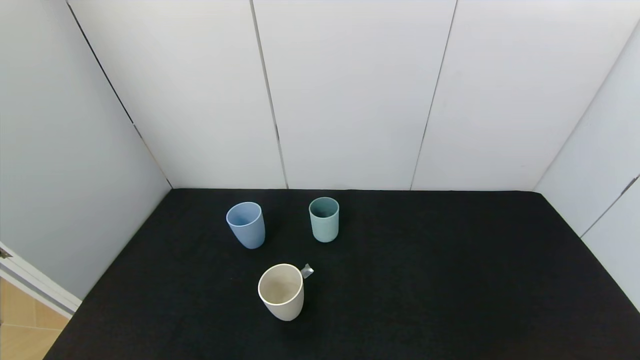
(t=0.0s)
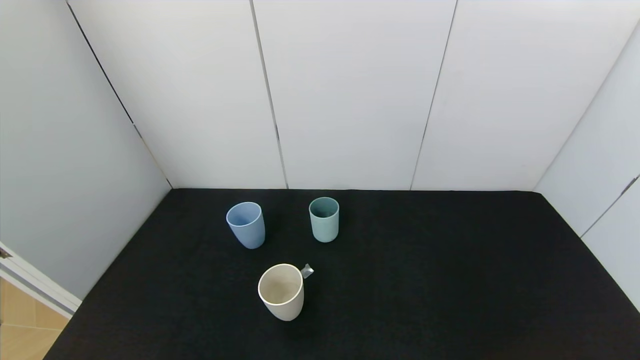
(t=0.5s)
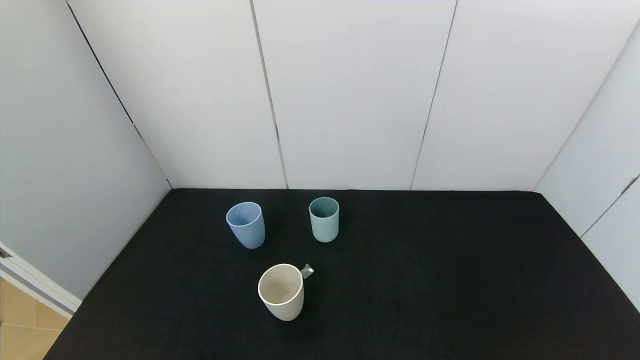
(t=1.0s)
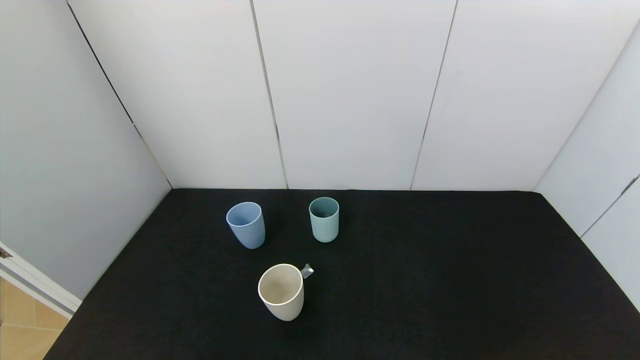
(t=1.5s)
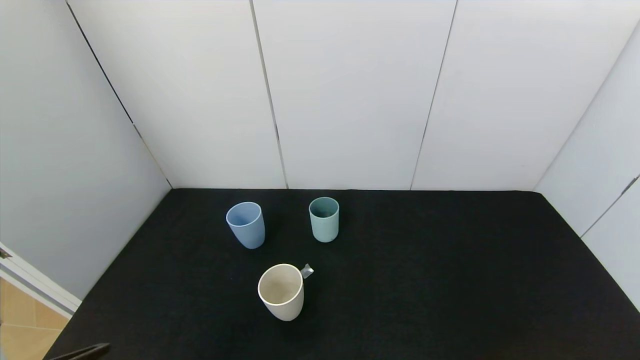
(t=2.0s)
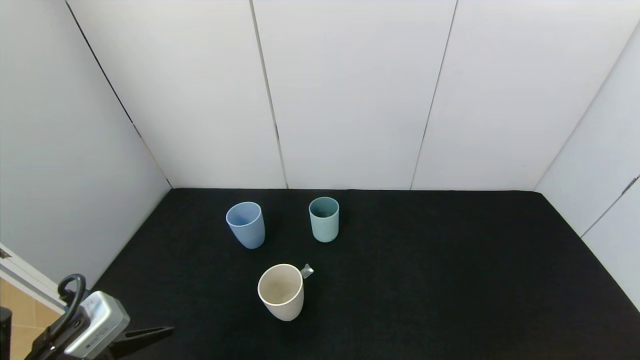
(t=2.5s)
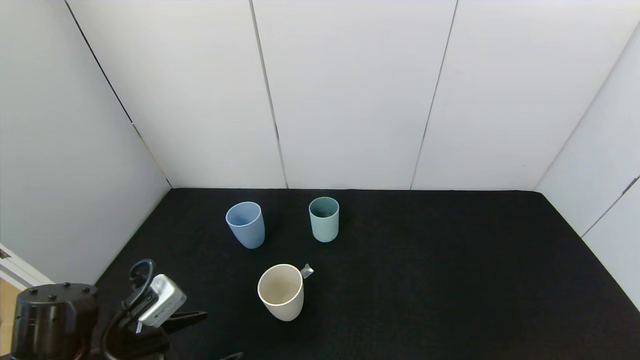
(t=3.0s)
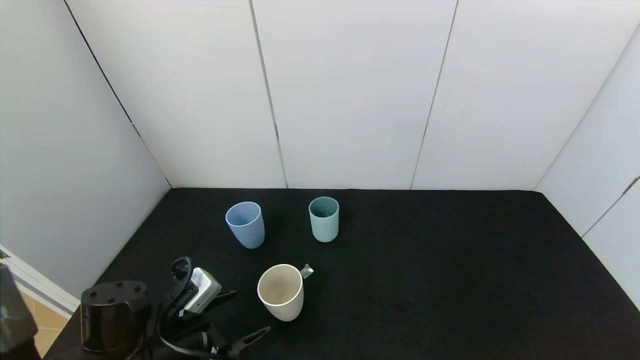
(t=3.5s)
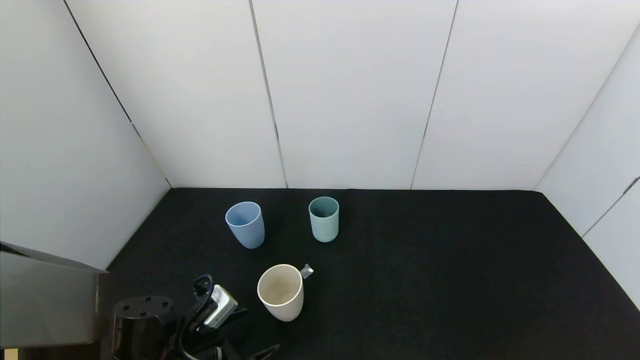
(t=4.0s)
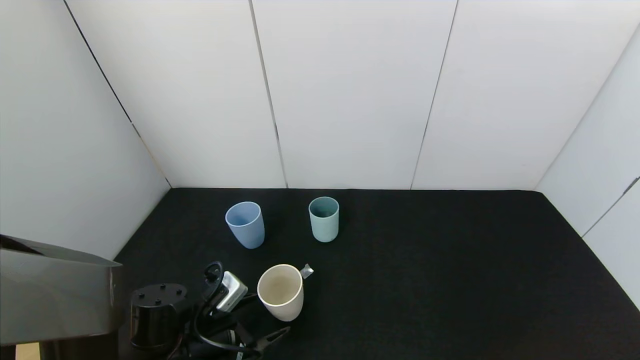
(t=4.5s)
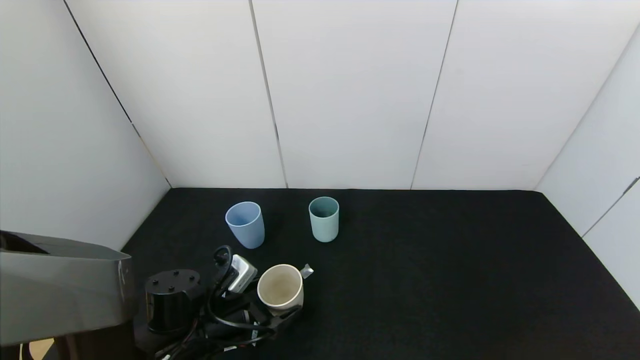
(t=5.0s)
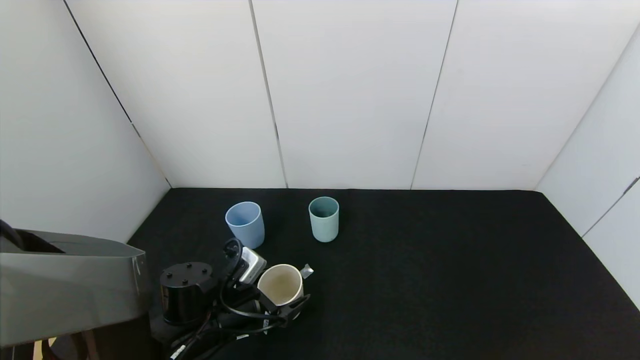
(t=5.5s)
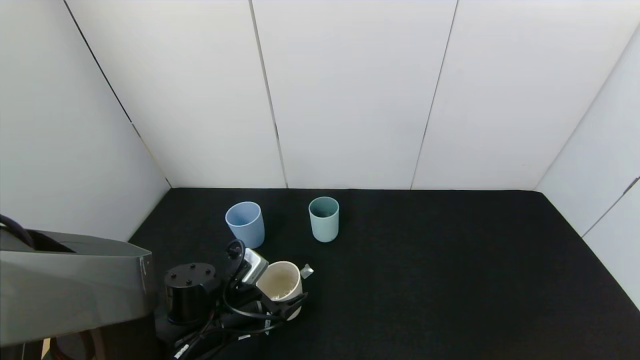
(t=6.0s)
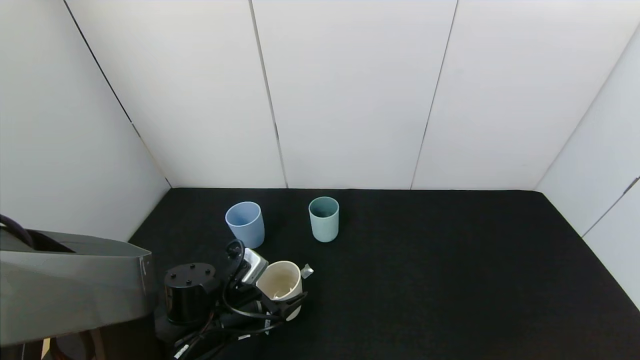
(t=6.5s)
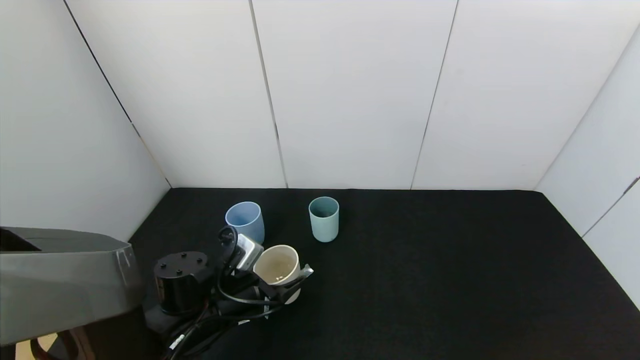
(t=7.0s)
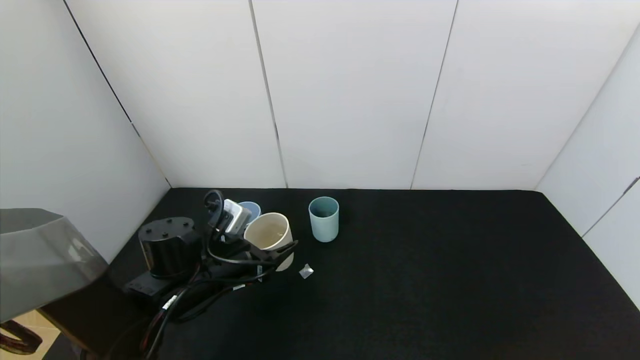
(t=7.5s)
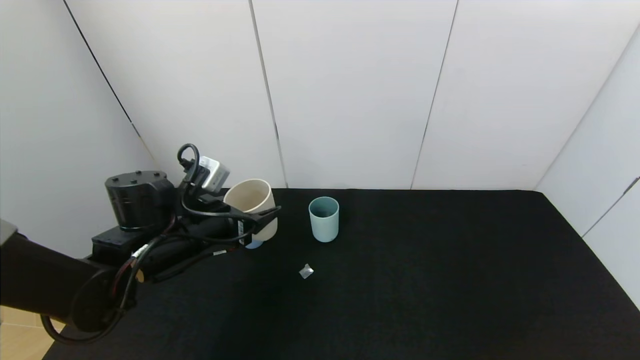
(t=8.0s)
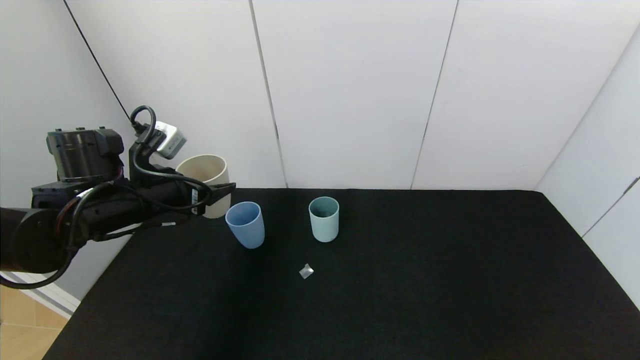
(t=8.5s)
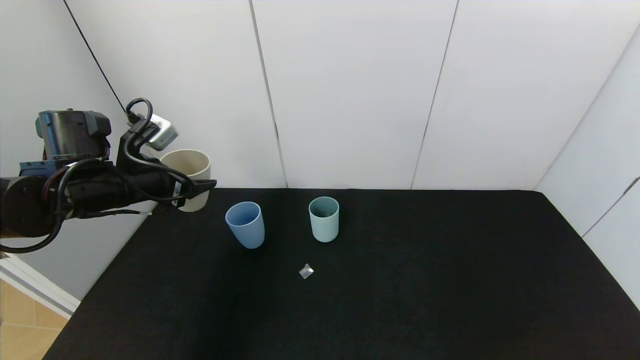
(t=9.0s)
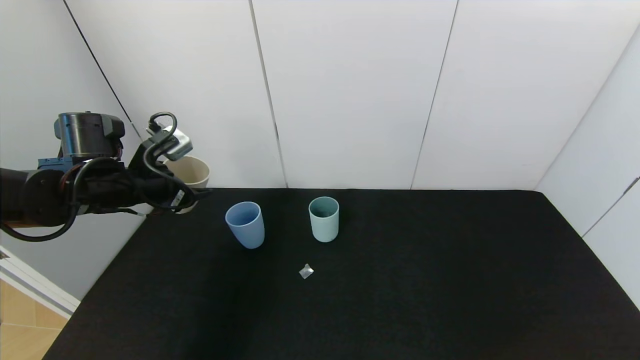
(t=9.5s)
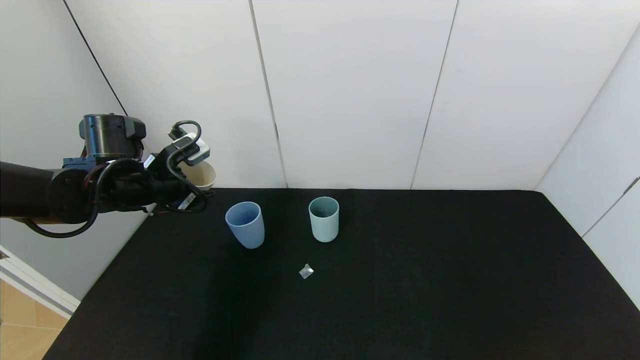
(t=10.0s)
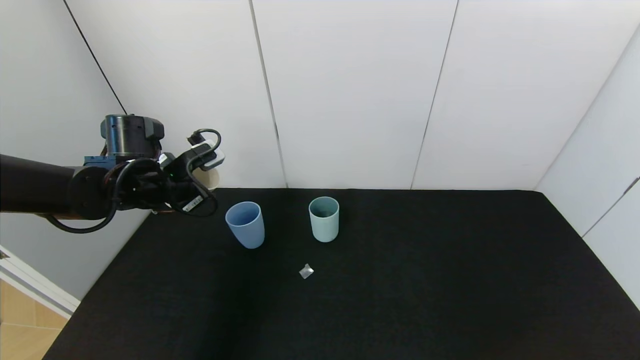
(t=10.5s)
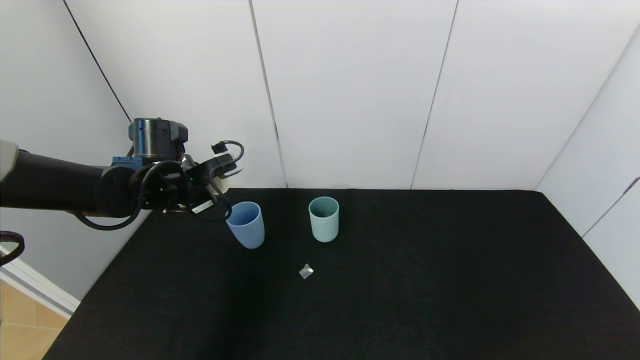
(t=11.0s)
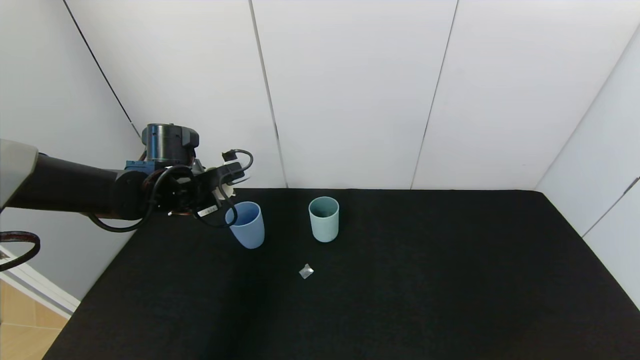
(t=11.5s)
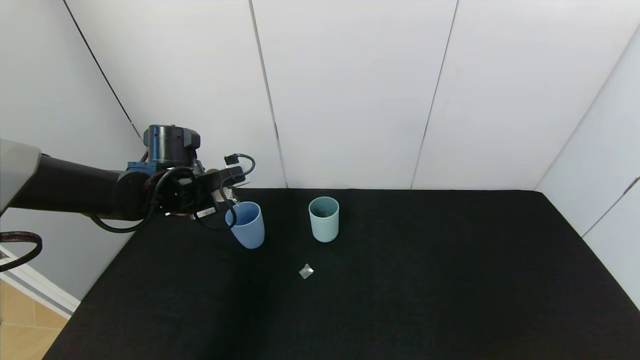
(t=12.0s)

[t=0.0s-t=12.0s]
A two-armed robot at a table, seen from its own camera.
Task of the whole recording: use the gripper to pour the water into the other two cups on black table.
Step, t=0.0s to t=6.0s: Grasp the white cup with the left gripper.
t=2.0s to t=4.0s: The left gripper travels forward and downward by some 20 cm.
t=4.0s to t=6.0s: The left gripper travels forward by roughly 5 cm, and closes up.
t=6.0s to t=8.0s: The left gripper travels upward by approximately 10 cm.
t=8.0s to t=10.0s: The left gripper is displaced to the left, forward and upward by approximately 10 cm.
t=10.0s to t=12.0s: The left gripper shifts by about 5 cm.

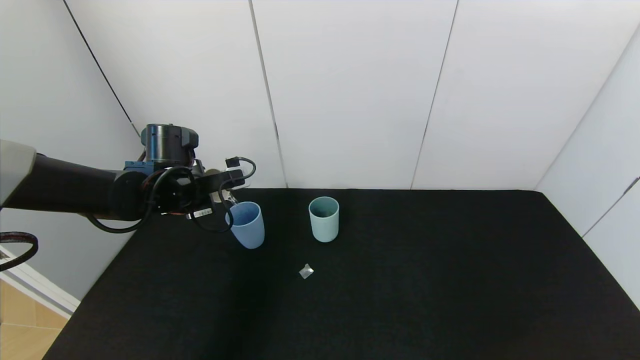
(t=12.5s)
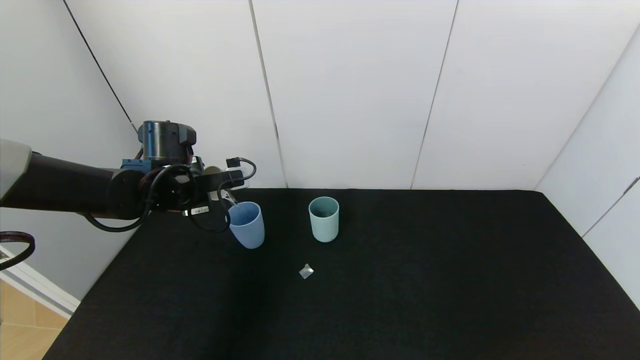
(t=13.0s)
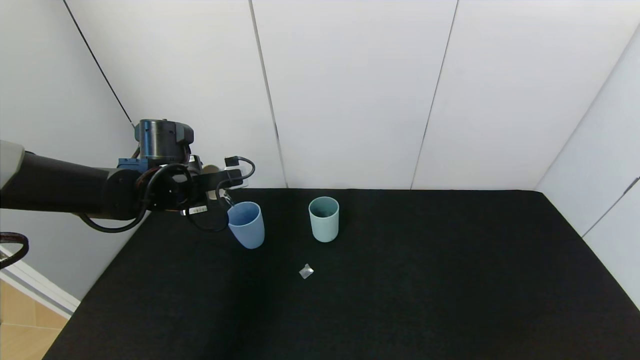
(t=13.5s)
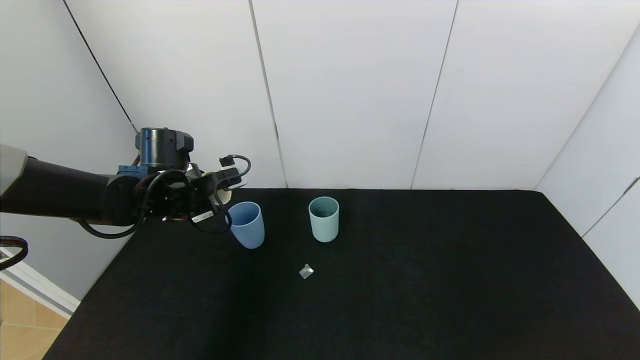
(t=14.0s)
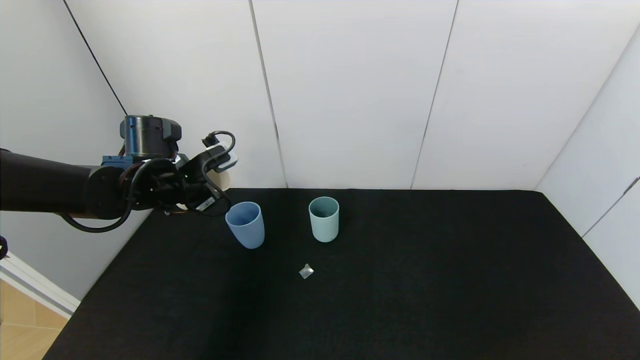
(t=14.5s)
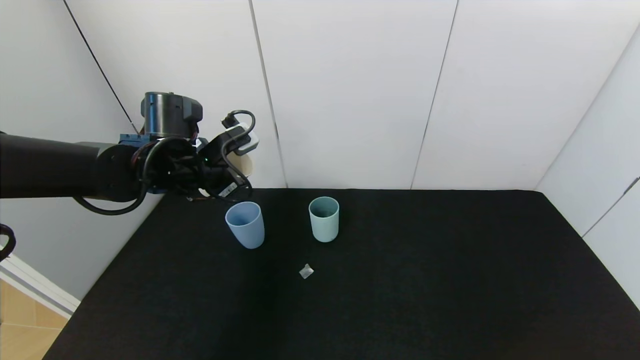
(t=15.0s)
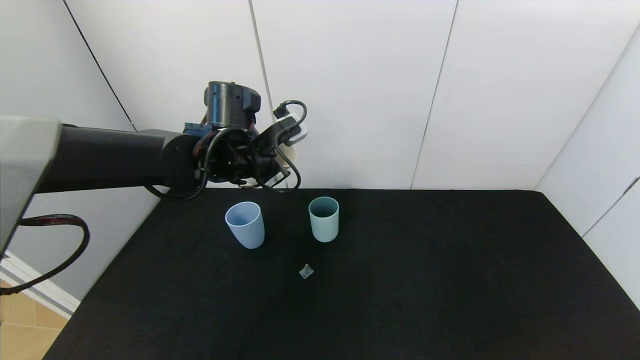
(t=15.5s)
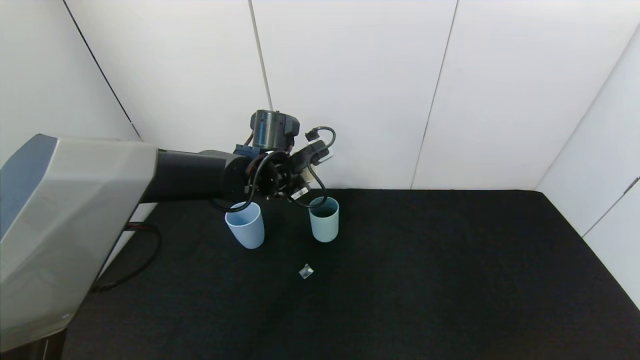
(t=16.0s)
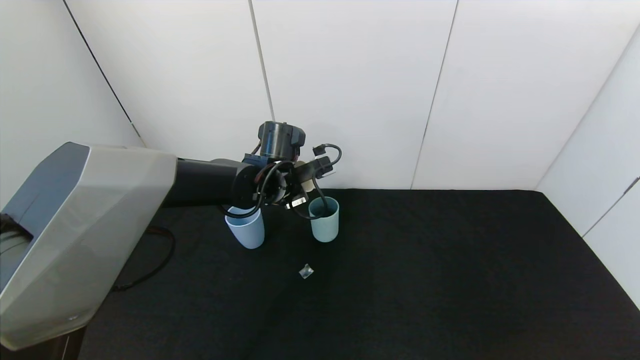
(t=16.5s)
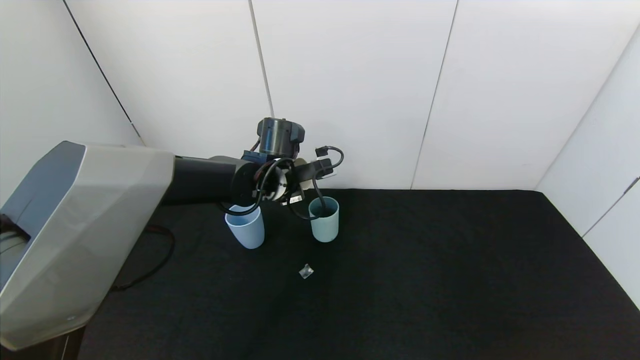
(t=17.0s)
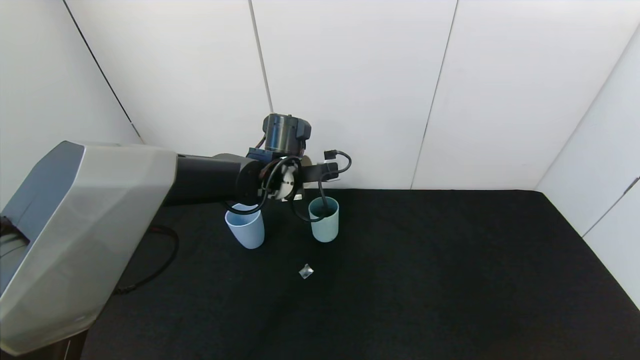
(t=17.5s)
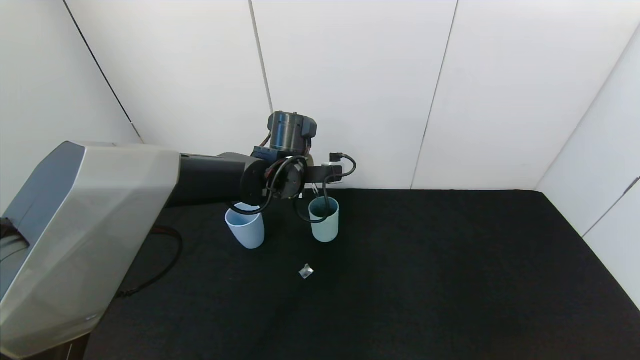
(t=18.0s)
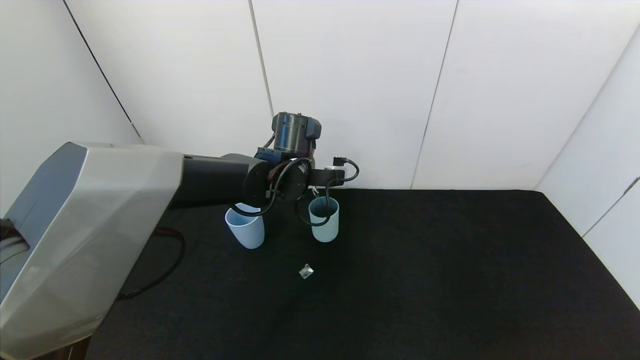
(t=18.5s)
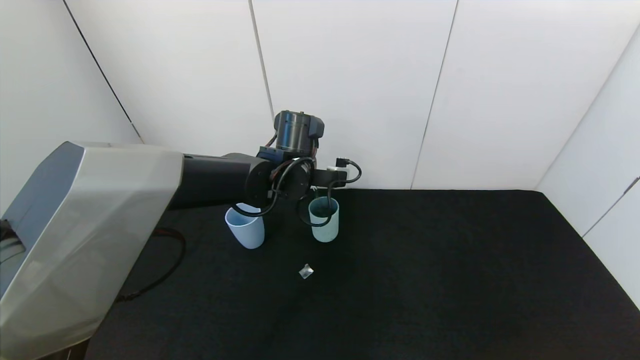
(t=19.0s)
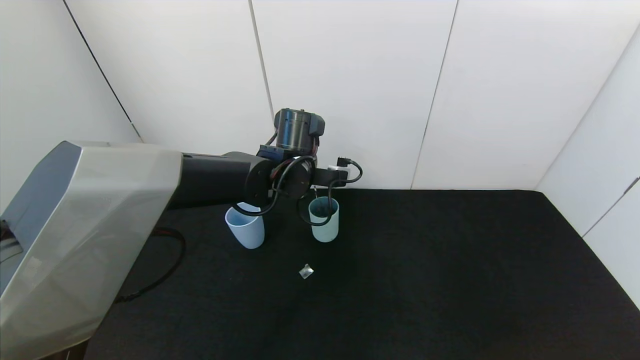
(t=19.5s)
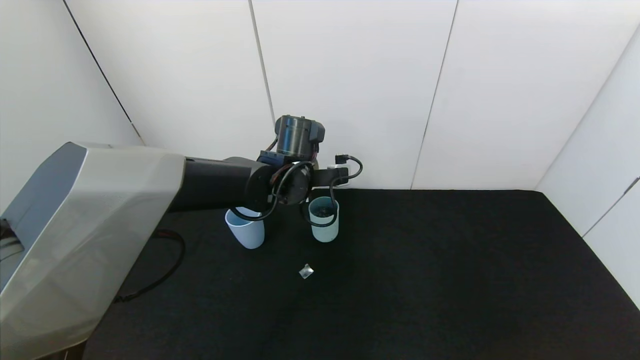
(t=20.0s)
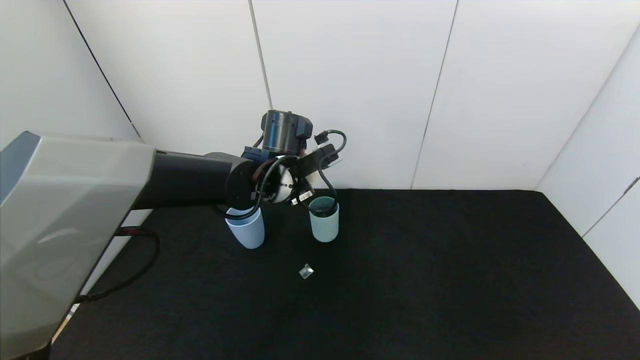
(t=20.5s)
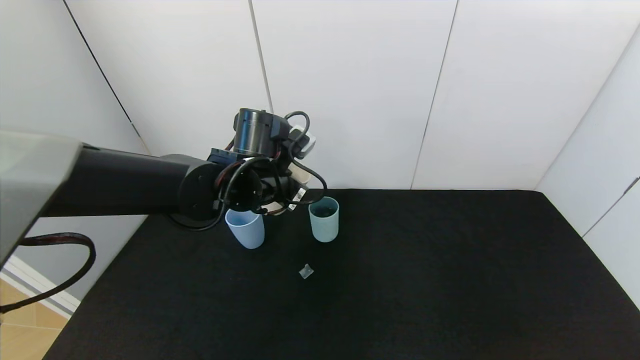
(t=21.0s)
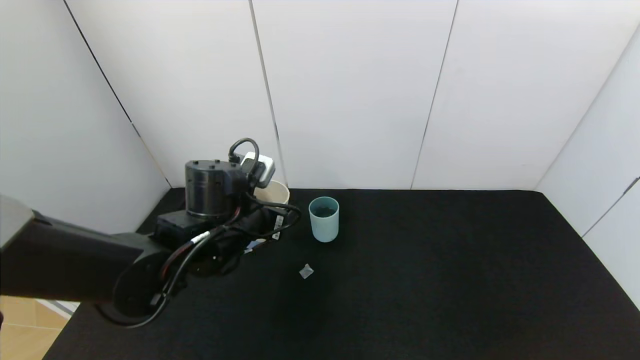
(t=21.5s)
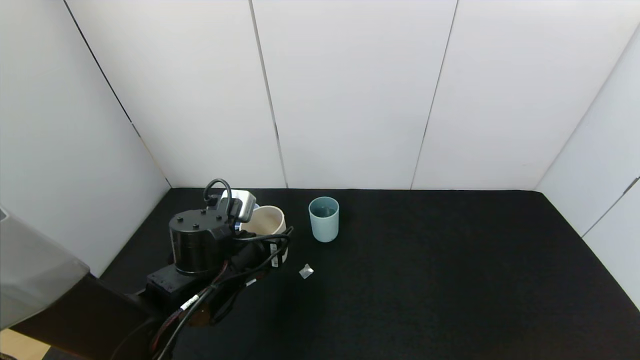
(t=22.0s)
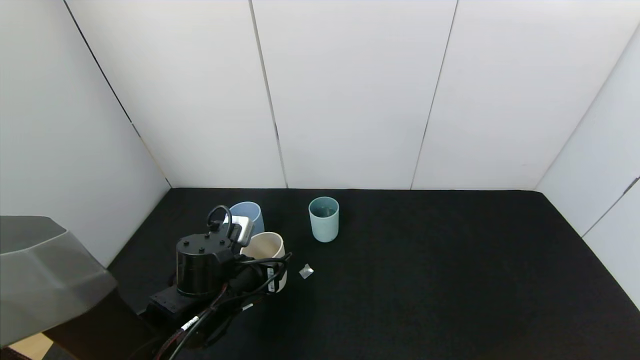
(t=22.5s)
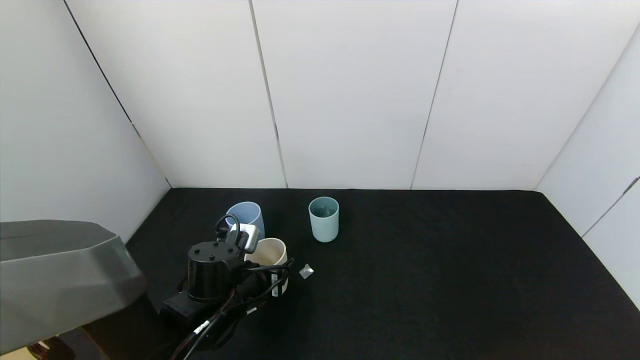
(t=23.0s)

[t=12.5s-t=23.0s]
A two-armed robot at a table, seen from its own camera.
Task of the whole recording: use the gripper to pour the water into the other two cups on black table.
Step, t=14.5s to t=20.0s: Pour water from white cup to green cup with the left gripper.
t=14.5s to t=16.5s: The left gripper goes about 15 cm to the right.
t=19.0s to t=21.0s: The left gripper is displaced backward by roughly 5 cm.
t=21.0s to t=23.0s: The left gripper moves downward and backward, some 15 cm.
